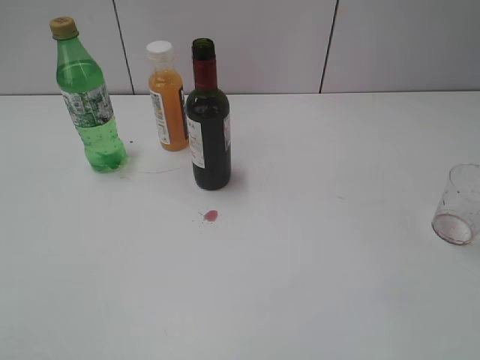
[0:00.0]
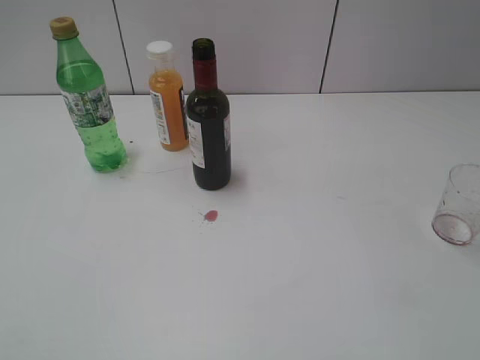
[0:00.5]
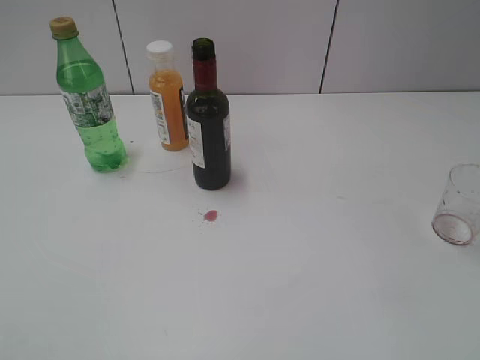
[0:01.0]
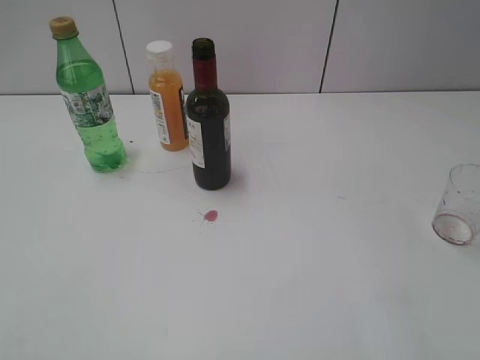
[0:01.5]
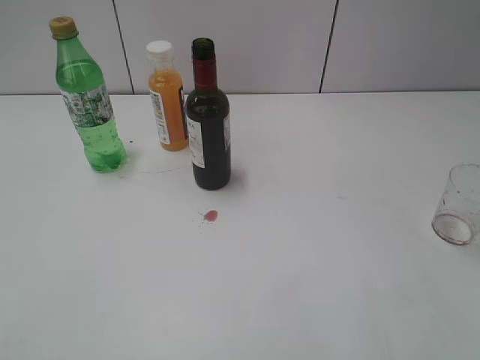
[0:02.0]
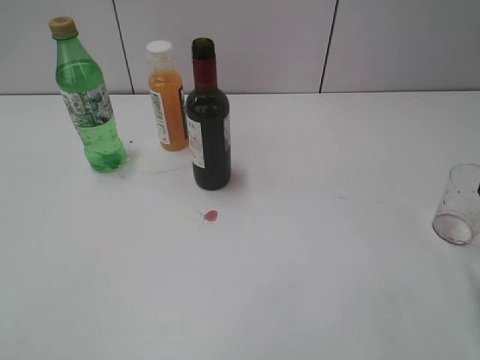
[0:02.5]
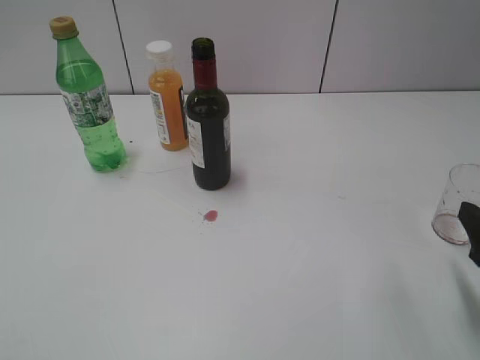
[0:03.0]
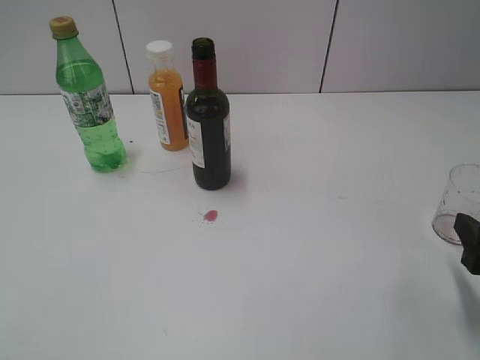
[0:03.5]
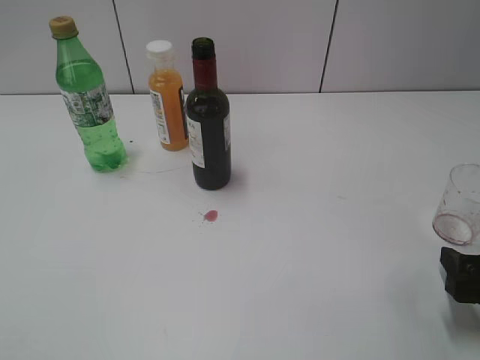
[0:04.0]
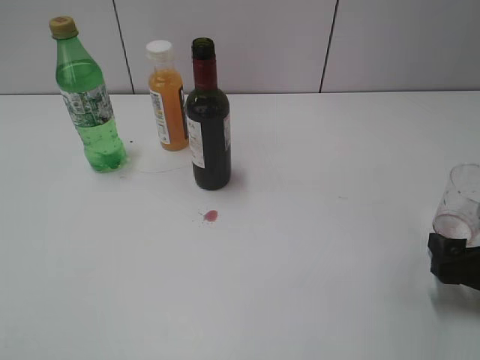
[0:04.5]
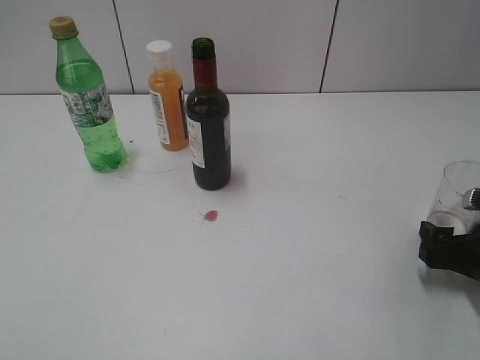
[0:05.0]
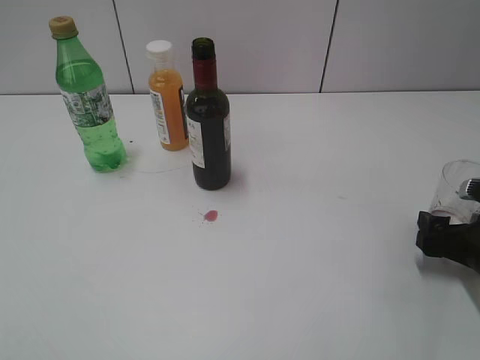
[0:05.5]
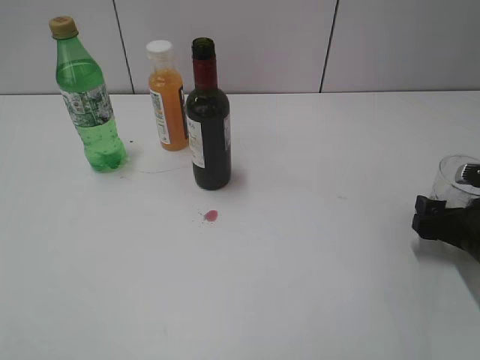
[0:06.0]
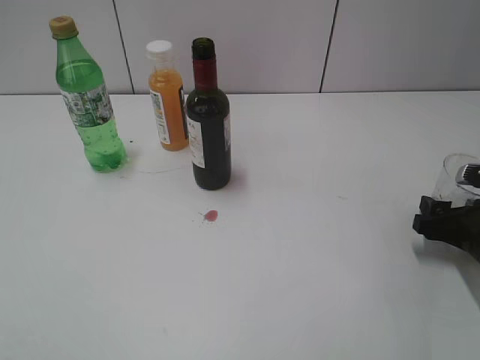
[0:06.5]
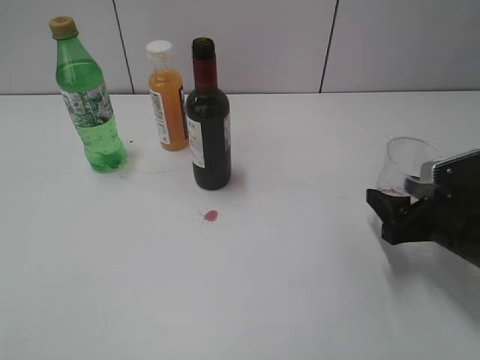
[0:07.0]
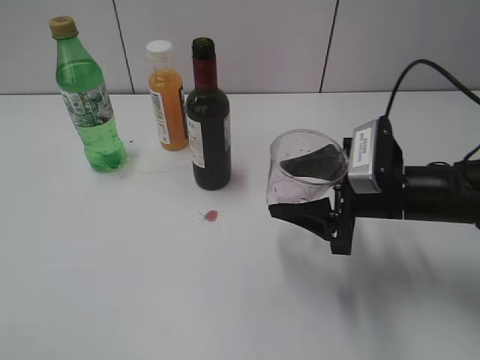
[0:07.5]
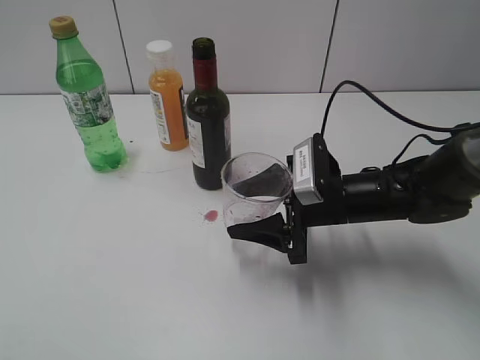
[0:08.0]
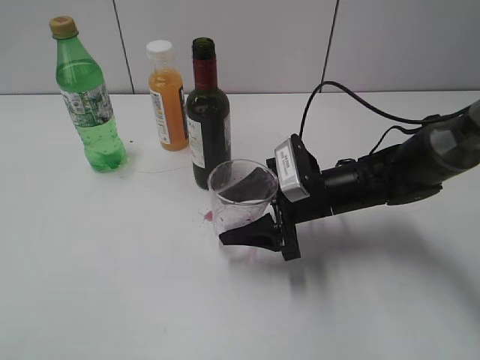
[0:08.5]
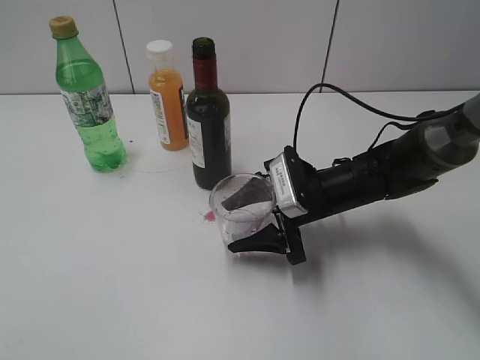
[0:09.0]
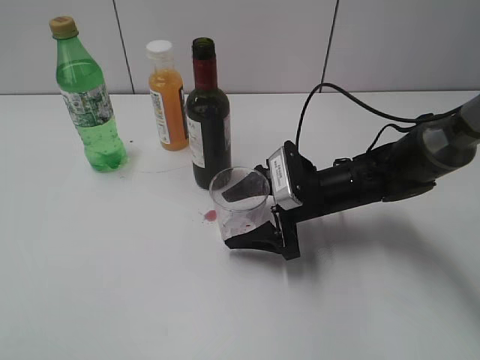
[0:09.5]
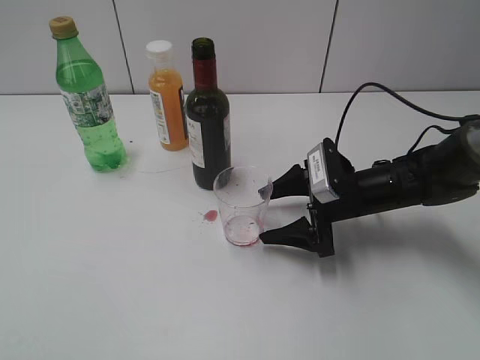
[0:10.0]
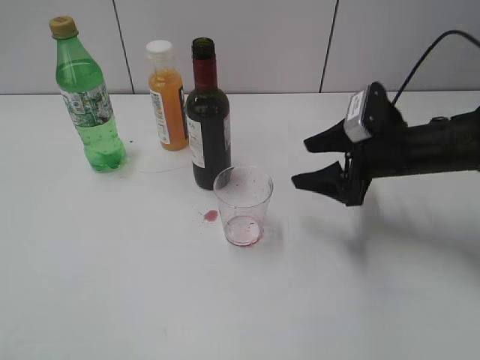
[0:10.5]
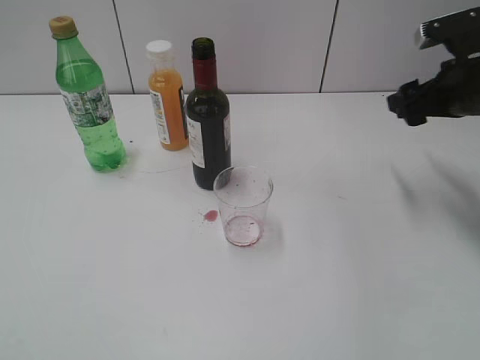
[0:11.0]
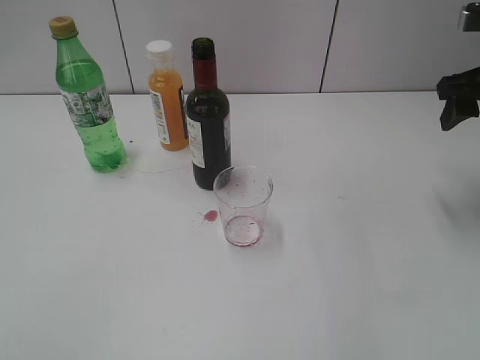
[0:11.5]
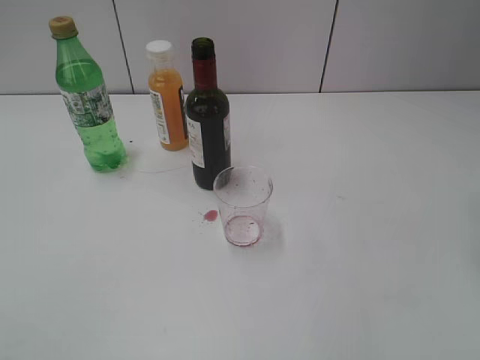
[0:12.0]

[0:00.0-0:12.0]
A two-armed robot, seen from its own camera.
Step, 0:01.0 to 0:06.0: Grasp the transparent cup with right gripper.
Step, 0:06.5 to 0:09.5: Place the transparent cup on the table with right gripper.
0:02.0 to 0:04.0: The right gripper goes about 15 cm downward.
0:04.0 to 0:06.0: The right gripper travels forward by about 10 cm.
0:06.0 to 0:08.0: The right gripper is displaced to the left by roughly 15 cm, and closes its fingers.
0:08.0 to 0:10.0: The right gripper ends up about 5 cm from where it was, and opens its fingers.
0:10.0 to 0:12.0: The right gripper heads upward and to the right, covering about 25 cm, and closes up.

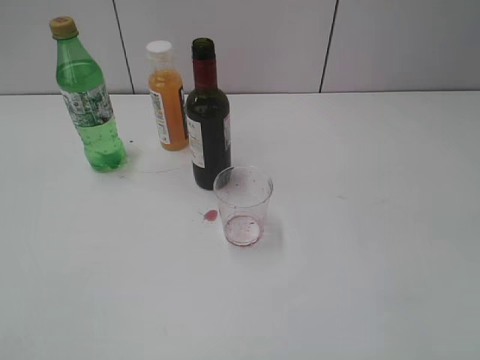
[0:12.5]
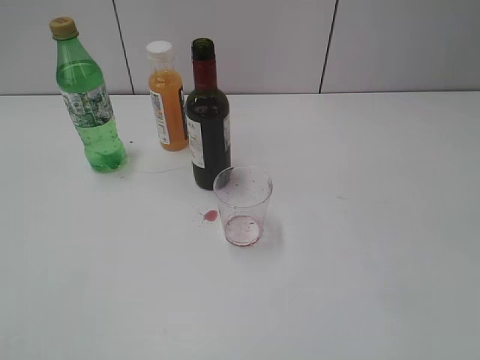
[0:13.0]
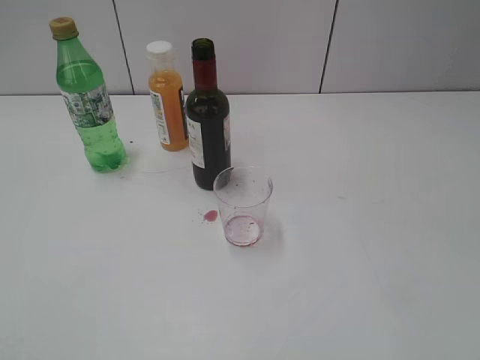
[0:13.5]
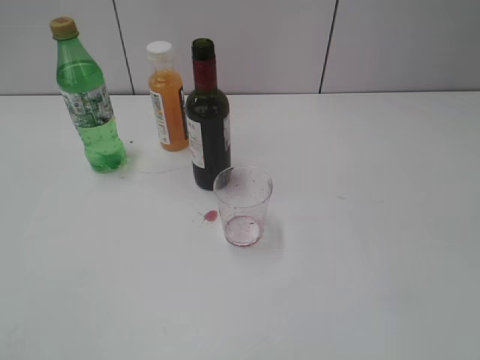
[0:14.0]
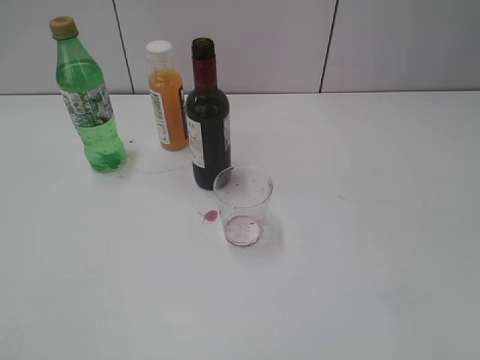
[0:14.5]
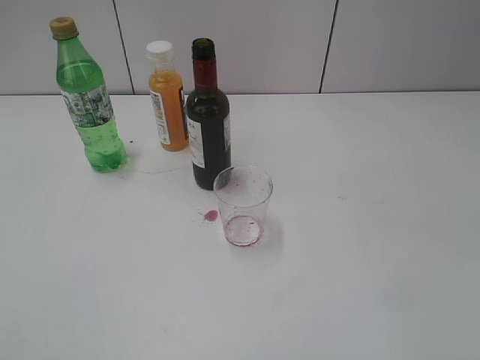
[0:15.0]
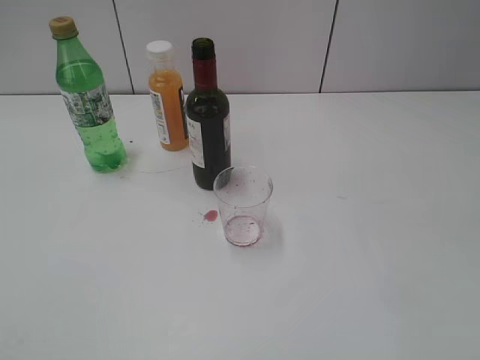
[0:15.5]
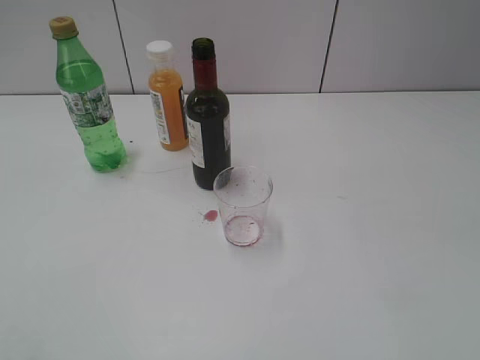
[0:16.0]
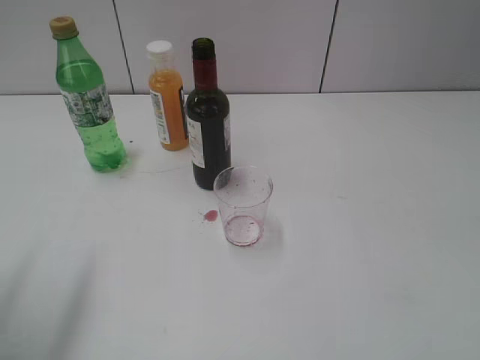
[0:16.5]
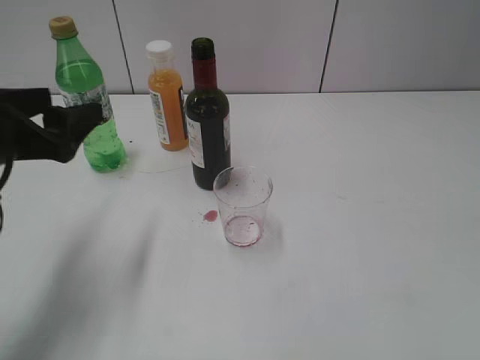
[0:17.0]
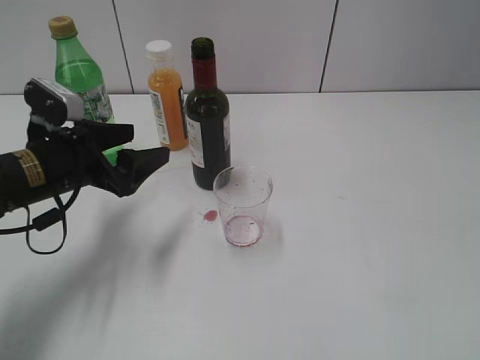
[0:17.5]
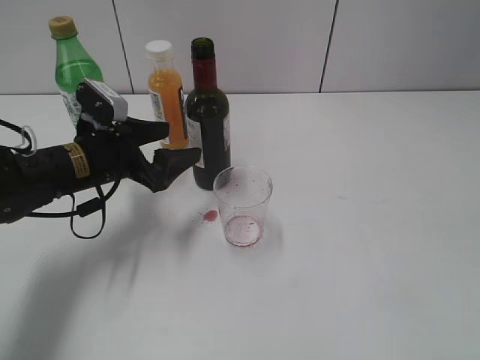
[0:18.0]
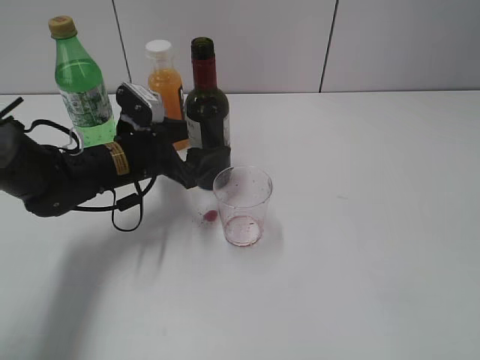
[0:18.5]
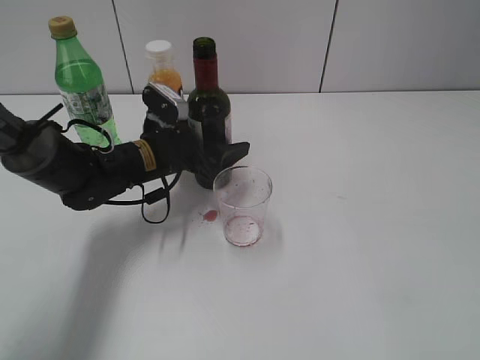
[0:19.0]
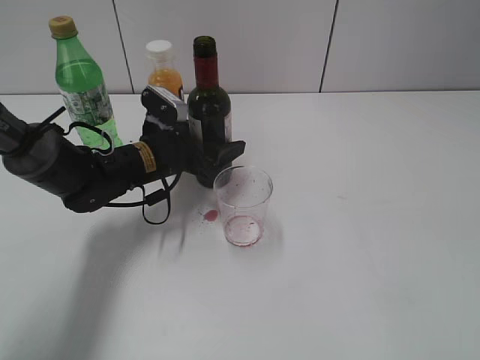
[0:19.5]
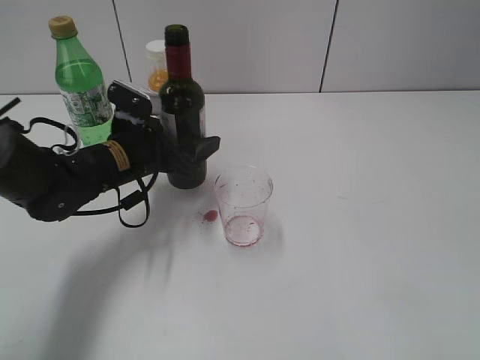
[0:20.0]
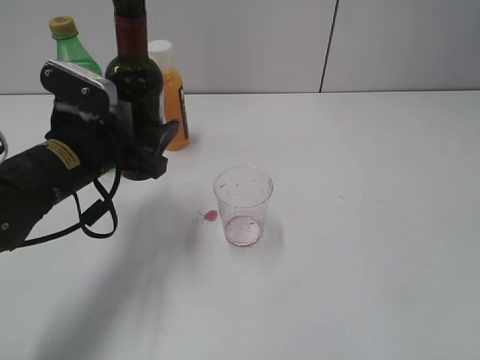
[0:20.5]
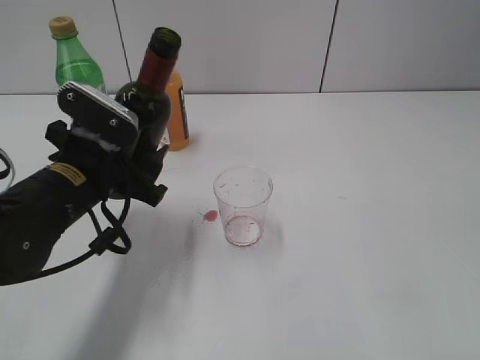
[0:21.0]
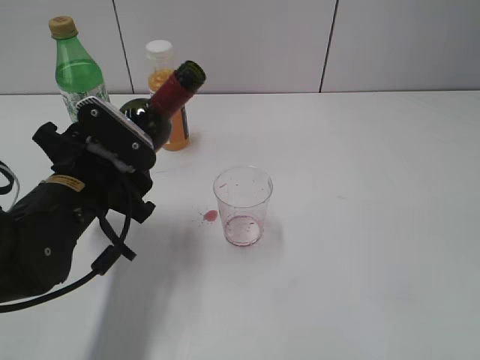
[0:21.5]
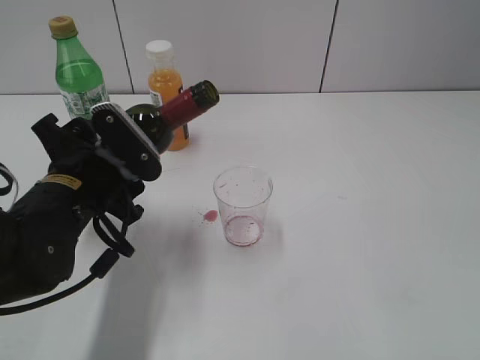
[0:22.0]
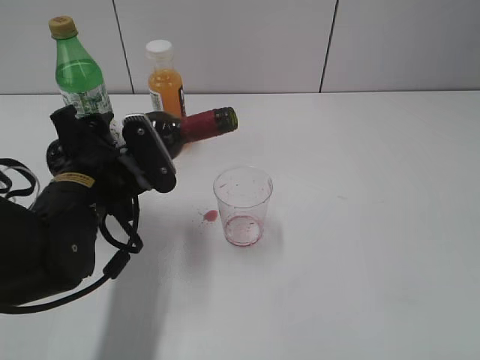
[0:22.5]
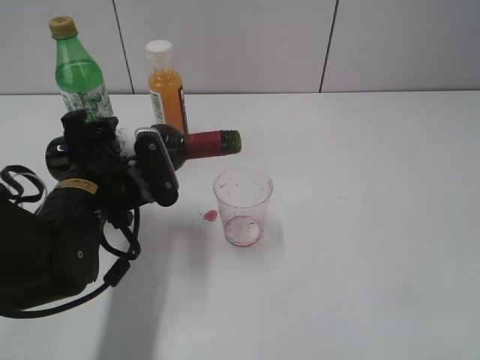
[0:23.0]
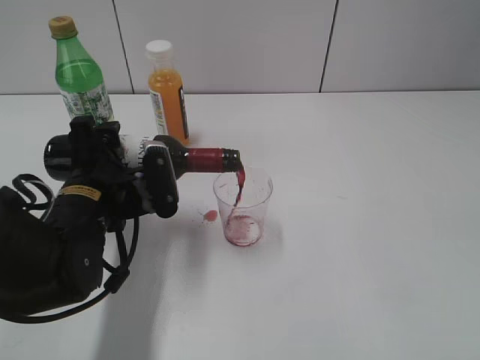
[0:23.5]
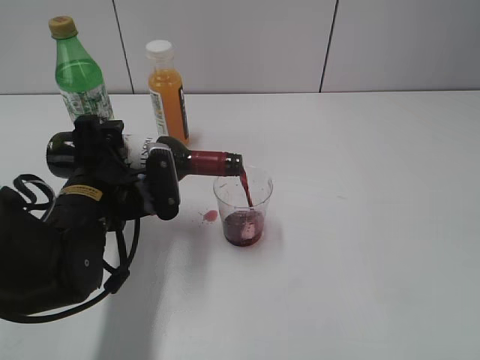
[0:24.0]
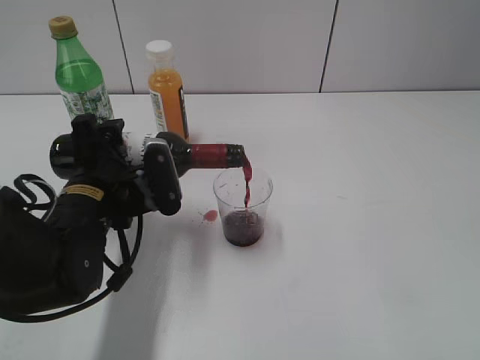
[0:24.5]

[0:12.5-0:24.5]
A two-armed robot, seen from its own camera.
Step, 0:12.5 to 0:19.5: Grasp the bottle with red wine with left gripper.
0:14.5 to 0:16.5: The left gripper travels forward by some 15 cm, and opens up.
0:16.5 to 0:18.5: The left gripper shifts roughly 30 cm forward, downward and to the right.
0:18.5 to 0:20.5: The left gripper heads backward and upward, covering roughly 10 cm.
0:20.5 to 0:22.5: The left gripper shifts by some 5 cm.

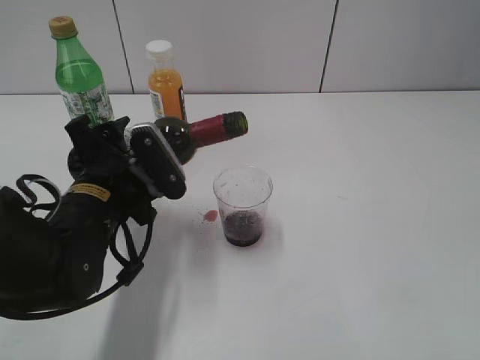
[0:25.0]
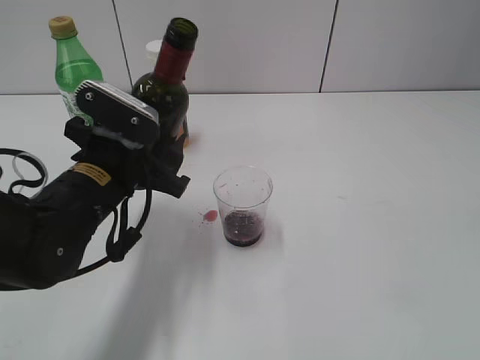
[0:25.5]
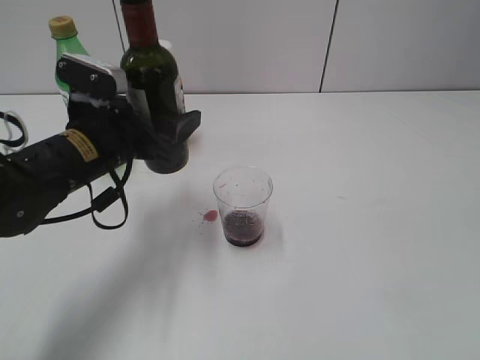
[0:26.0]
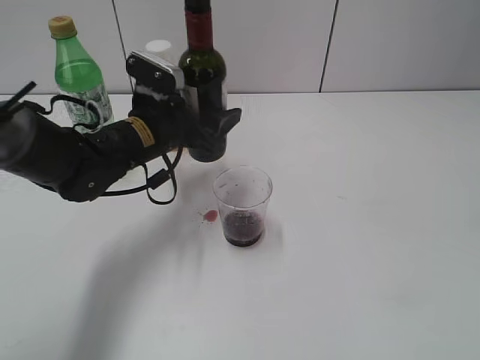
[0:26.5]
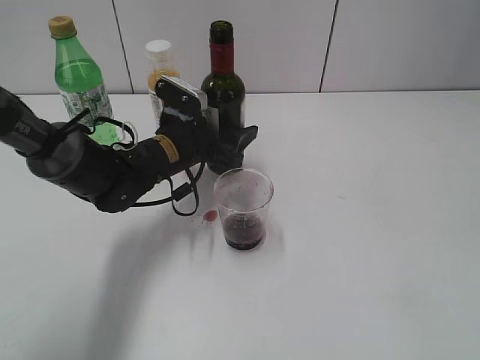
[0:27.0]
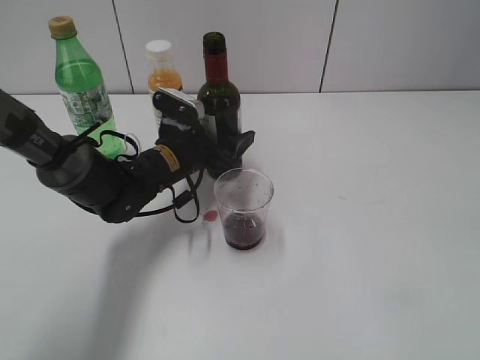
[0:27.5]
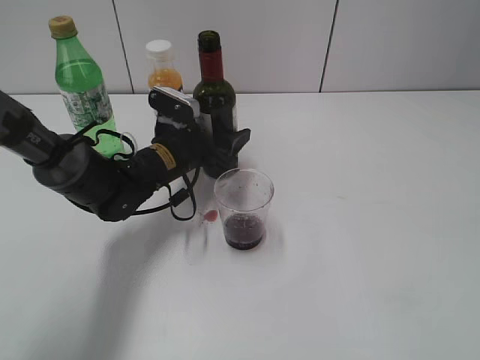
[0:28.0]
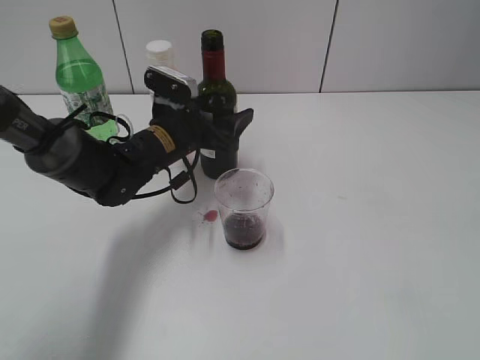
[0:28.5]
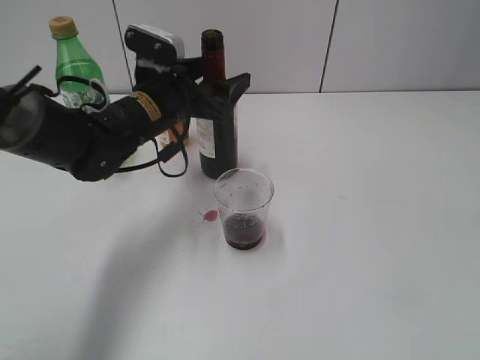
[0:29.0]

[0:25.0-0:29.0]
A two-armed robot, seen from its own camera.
Step, 0:25.5 to 0:28.5: Place the red wine bottle on the table with left gripper.
0:25.0 to 0:27.0: The left gripper moves forward and to the right, approximately 15 cm.
0:27.0 to 0:29.0: The left gripper is displaced upward by some 5 cm.
